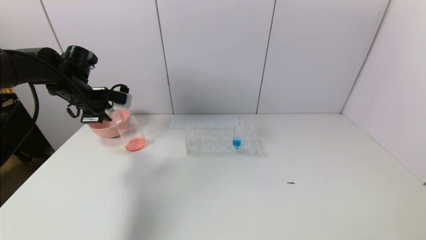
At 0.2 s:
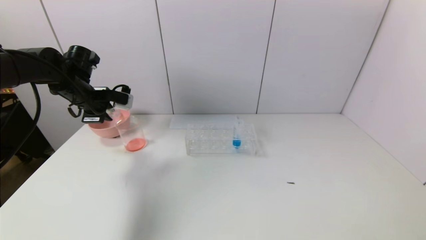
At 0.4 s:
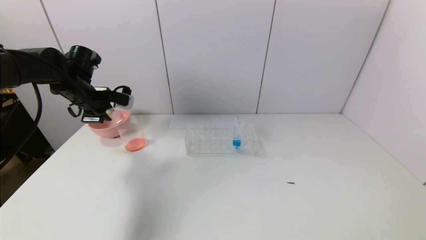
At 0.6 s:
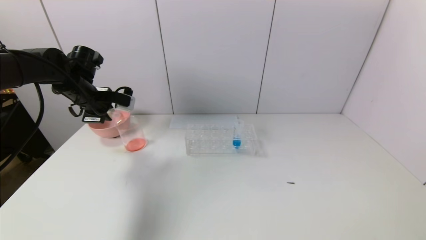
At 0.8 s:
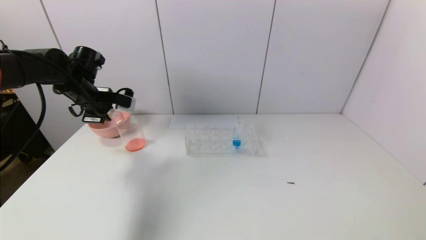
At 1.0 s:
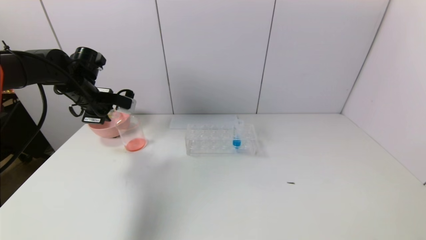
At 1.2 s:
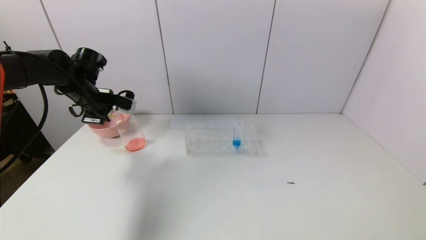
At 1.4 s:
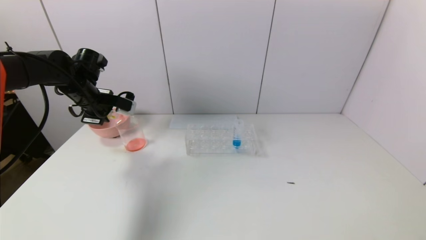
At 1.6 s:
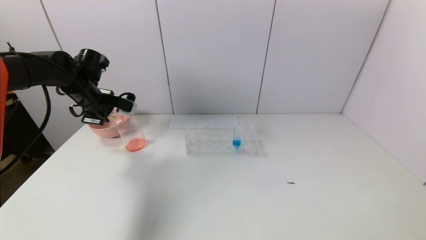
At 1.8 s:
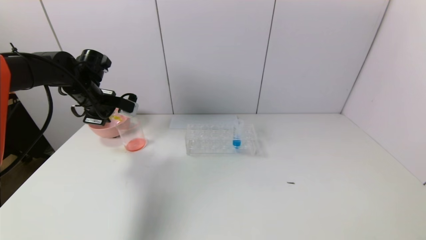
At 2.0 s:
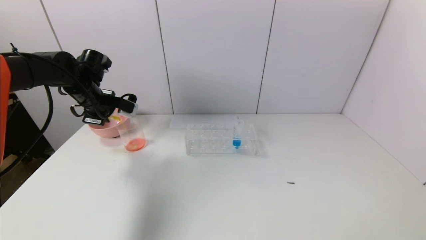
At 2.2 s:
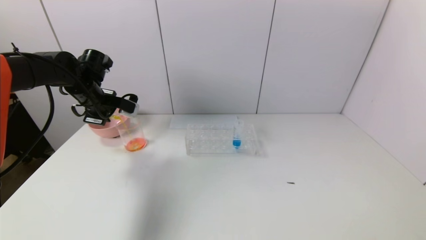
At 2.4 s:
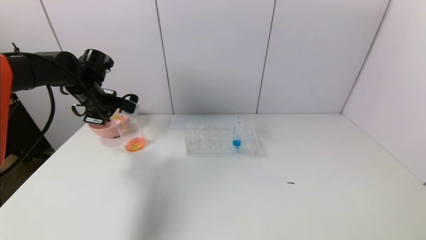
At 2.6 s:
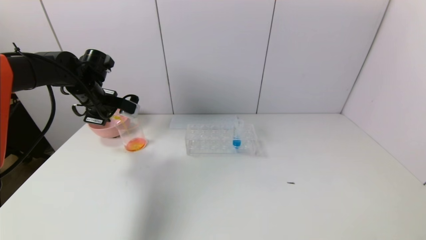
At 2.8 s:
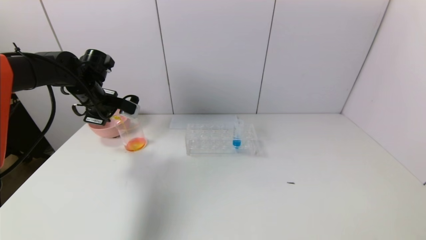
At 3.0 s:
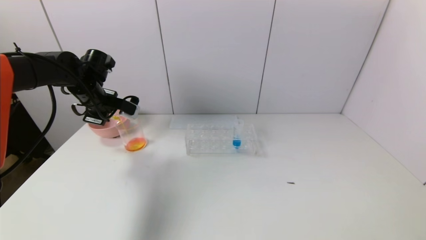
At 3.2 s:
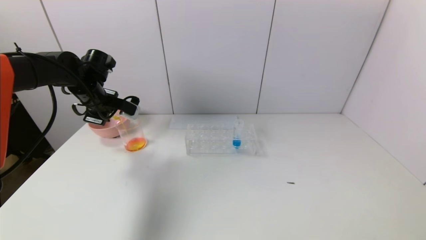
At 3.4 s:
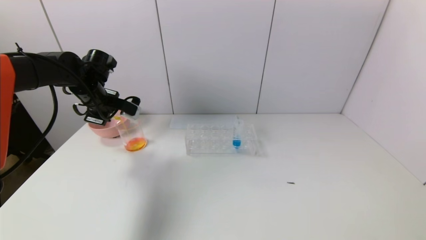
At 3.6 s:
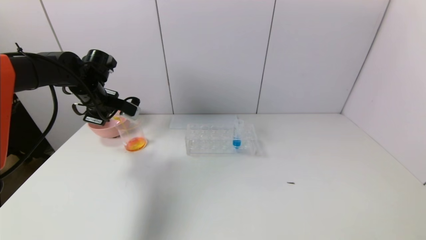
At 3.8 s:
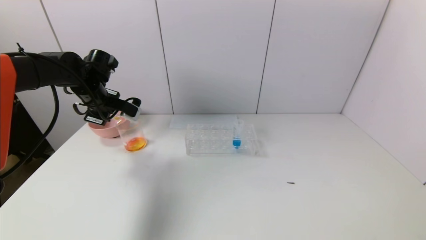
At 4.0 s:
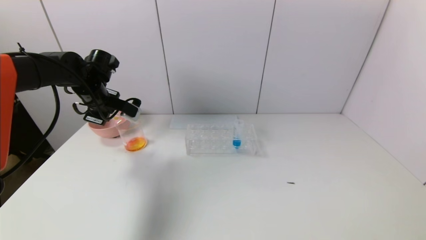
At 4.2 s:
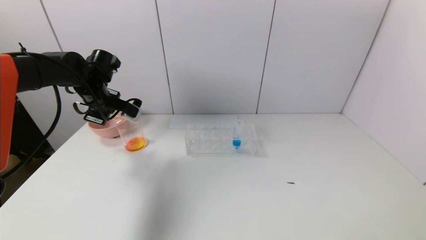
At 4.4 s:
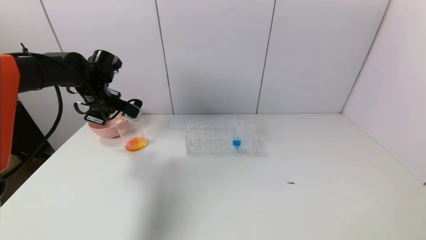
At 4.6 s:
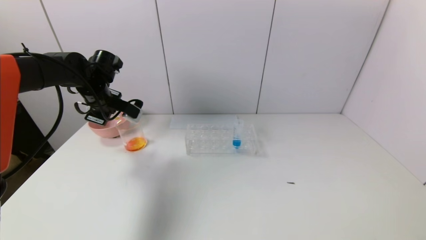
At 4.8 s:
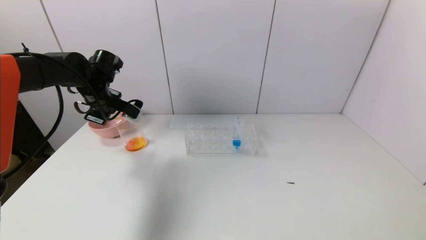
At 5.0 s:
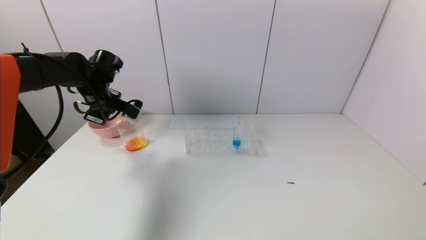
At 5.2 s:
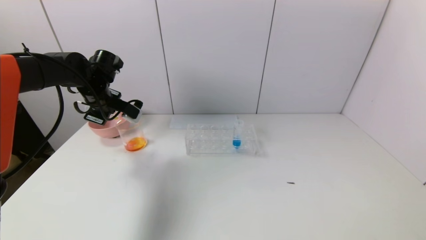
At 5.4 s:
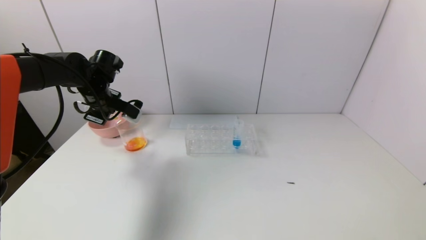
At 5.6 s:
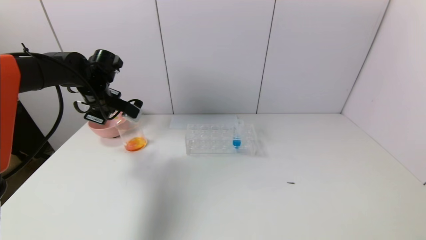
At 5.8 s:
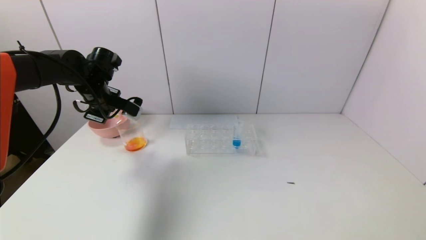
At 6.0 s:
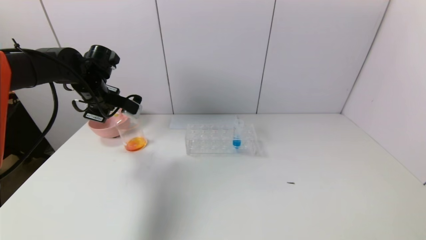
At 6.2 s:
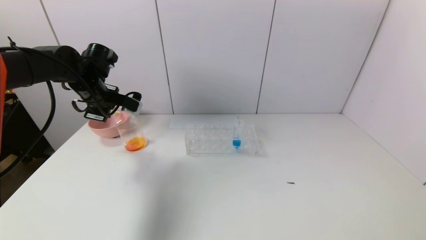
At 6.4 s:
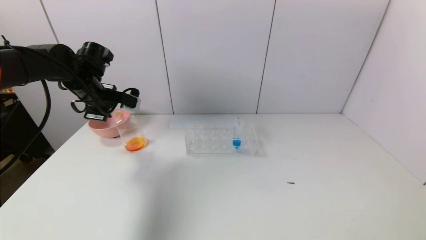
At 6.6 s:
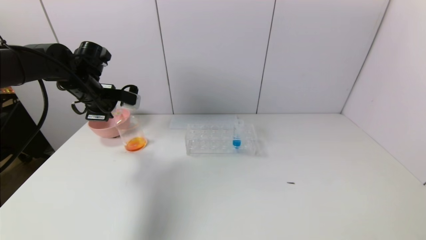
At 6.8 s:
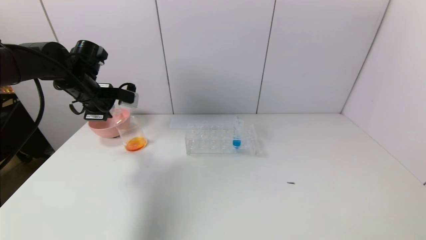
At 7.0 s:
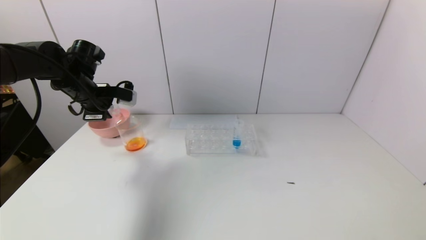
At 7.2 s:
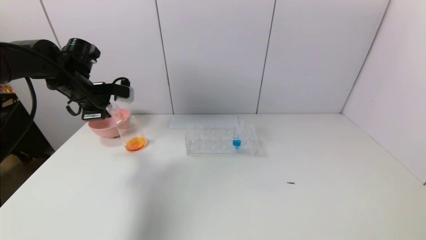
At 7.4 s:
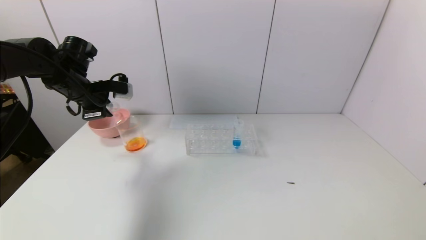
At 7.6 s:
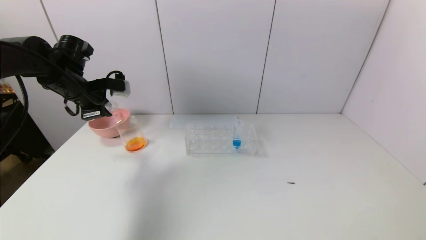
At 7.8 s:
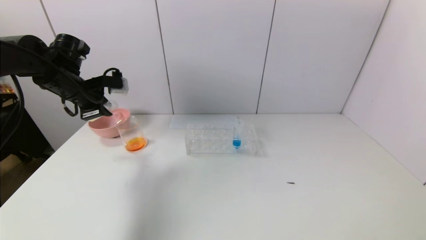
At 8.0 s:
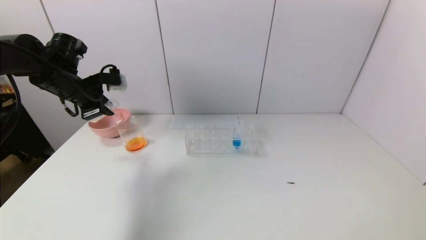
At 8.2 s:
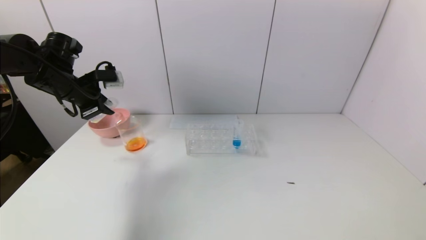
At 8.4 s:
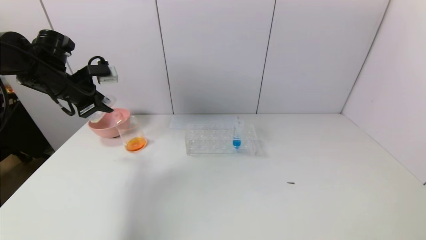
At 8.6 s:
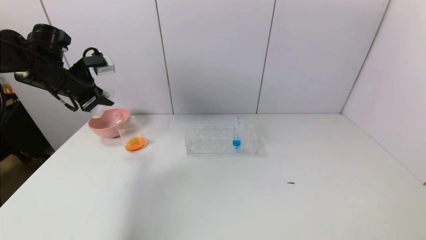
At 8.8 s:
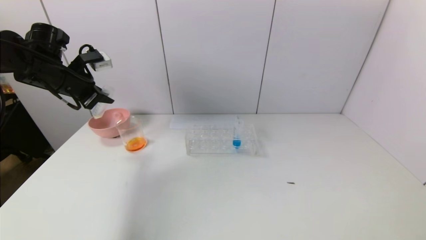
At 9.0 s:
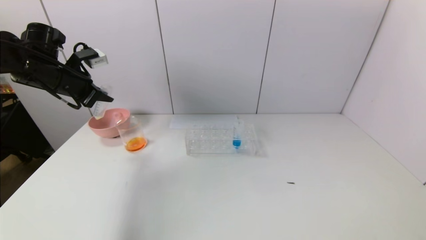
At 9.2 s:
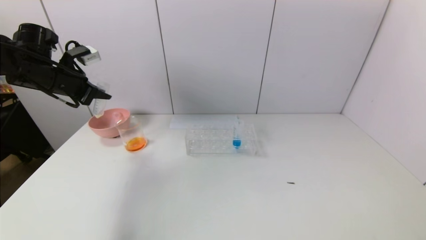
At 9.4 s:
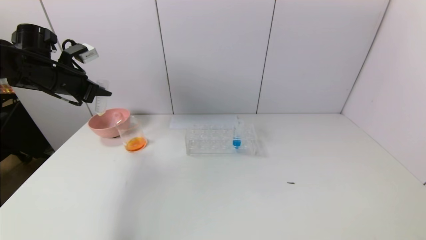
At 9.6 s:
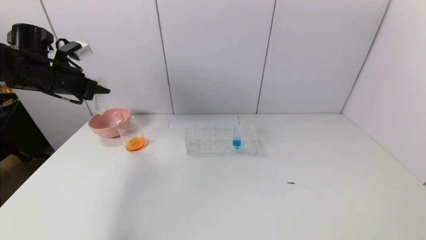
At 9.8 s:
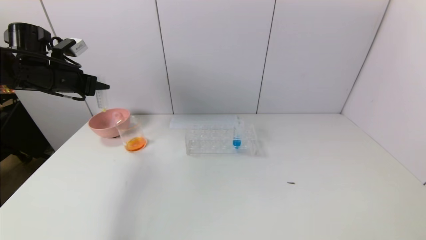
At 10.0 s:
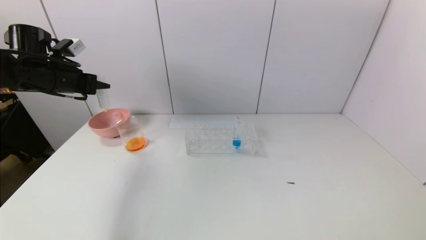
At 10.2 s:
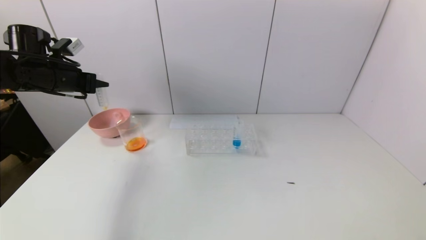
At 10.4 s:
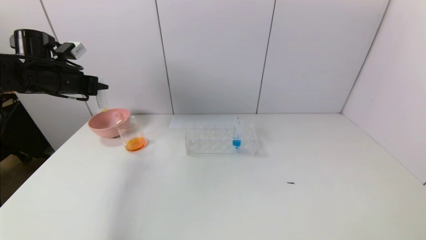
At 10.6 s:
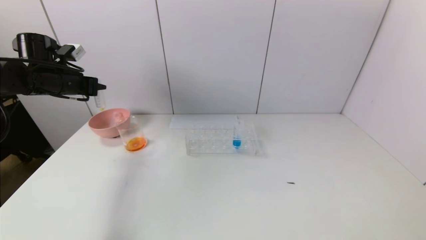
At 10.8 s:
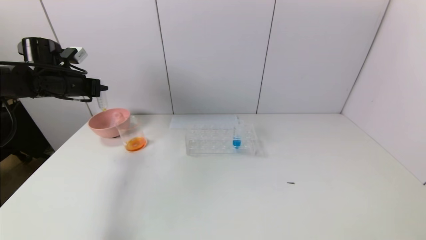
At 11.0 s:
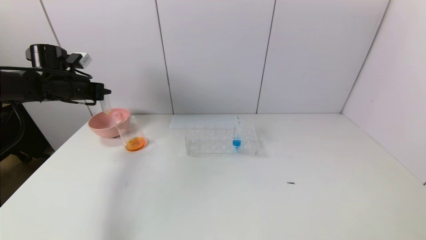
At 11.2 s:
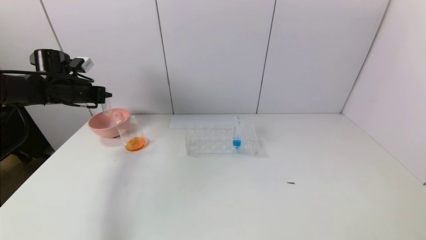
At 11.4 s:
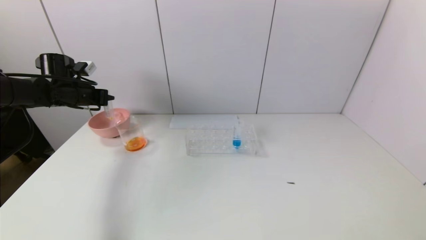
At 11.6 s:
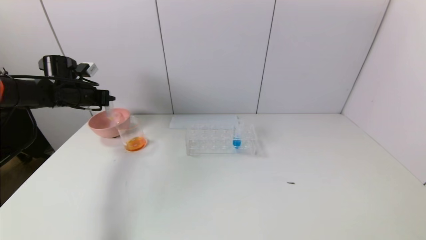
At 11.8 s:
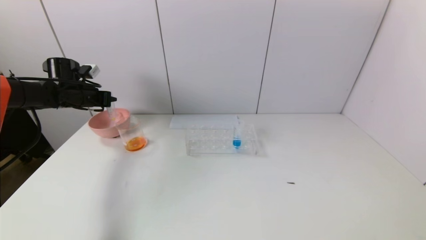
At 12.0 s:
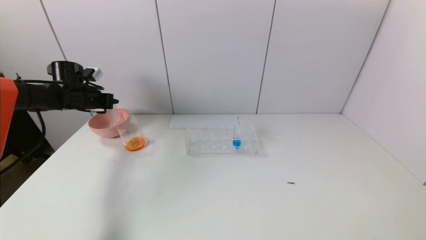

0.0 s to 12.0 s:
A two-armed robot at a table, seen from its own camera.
Task of the whole recording: pick up the test tube with yellow pigment and the test tube with red pigment by grippers and pour them into the beaker.
Step, 0.0 to 5.8 s: Pour the yellow reagent into the graduated cylinder with the left gripper.
0.0 to 3.0 s: There are only small adjustments of the grippers.
3.0 to 4.4 s: The grippers make only small movements.
4.4 to 6.0 s: Both grippers stay about where they are.
10.4 to 12.0 s: The left gripper is displaced downward and forward by about 10 cm.

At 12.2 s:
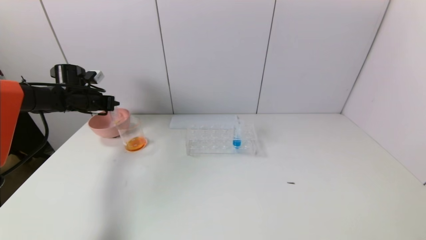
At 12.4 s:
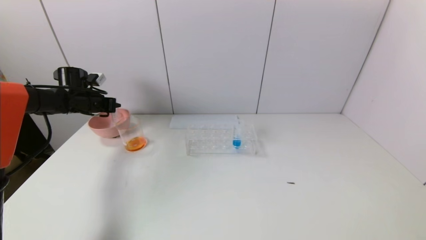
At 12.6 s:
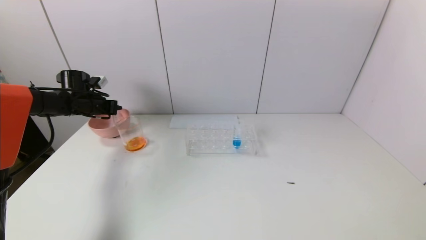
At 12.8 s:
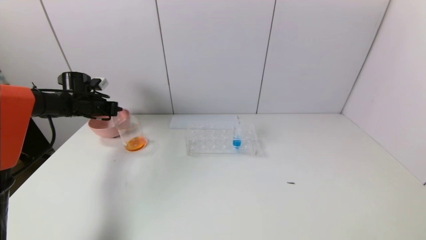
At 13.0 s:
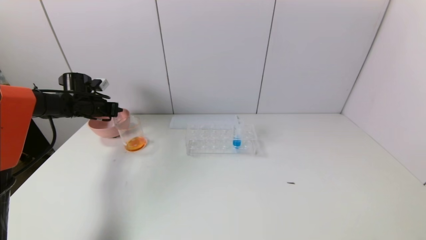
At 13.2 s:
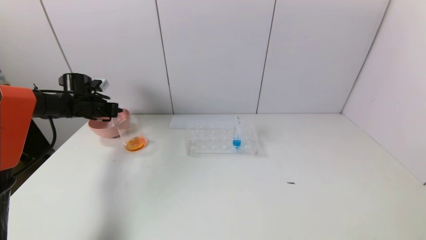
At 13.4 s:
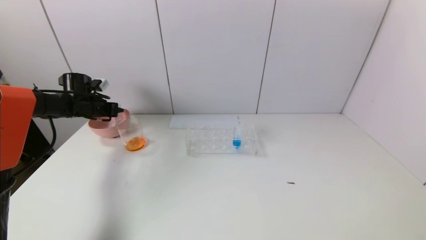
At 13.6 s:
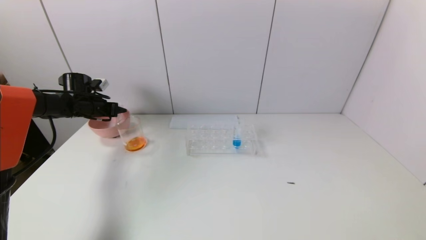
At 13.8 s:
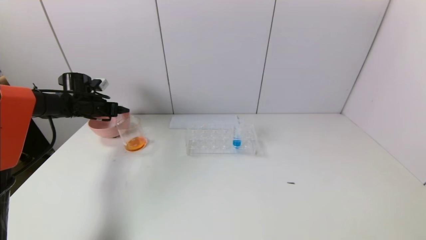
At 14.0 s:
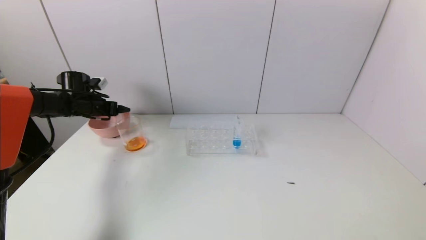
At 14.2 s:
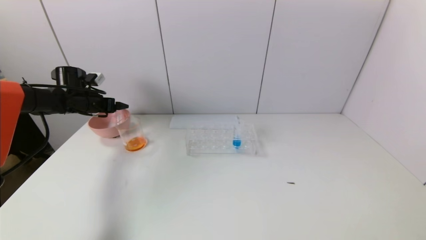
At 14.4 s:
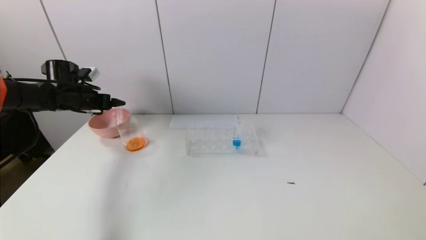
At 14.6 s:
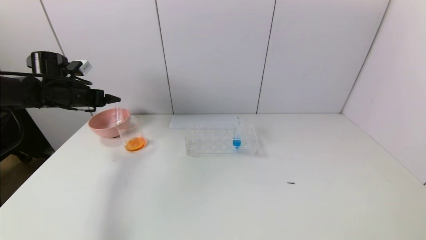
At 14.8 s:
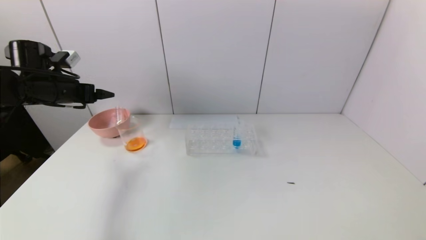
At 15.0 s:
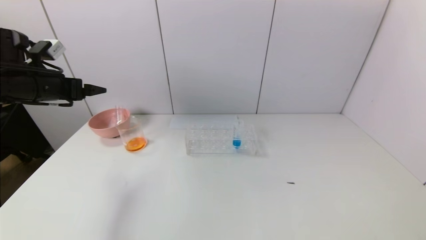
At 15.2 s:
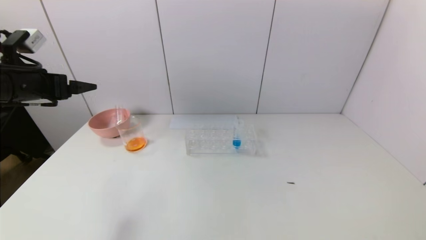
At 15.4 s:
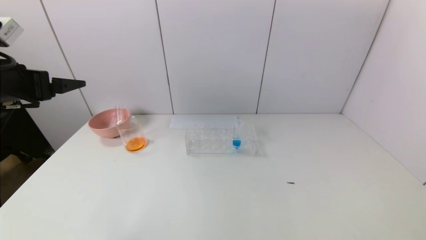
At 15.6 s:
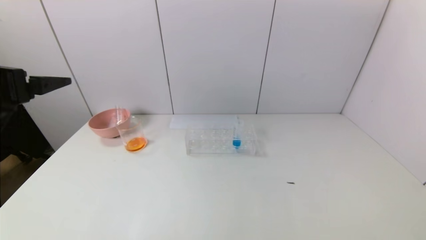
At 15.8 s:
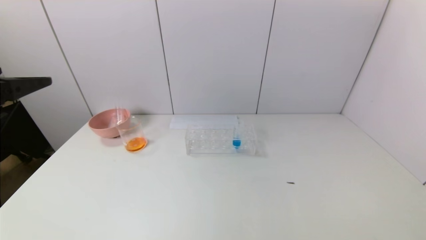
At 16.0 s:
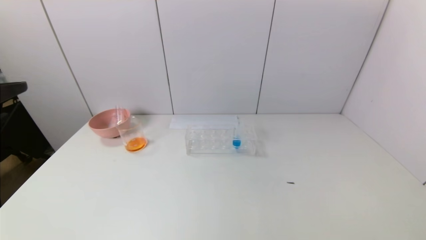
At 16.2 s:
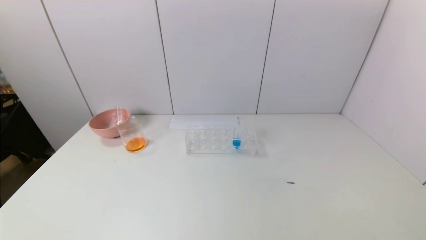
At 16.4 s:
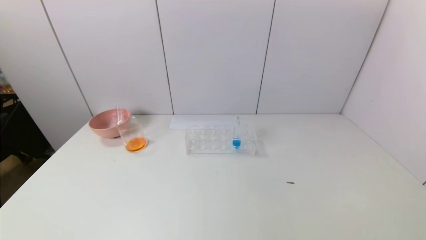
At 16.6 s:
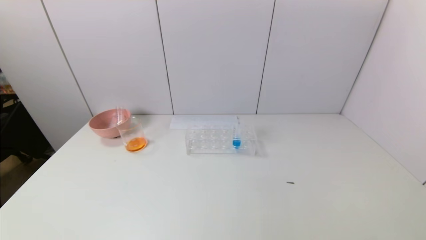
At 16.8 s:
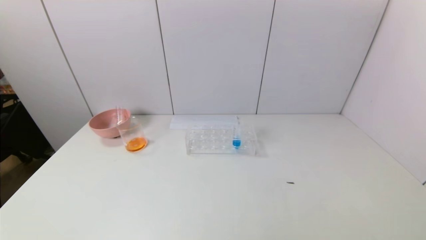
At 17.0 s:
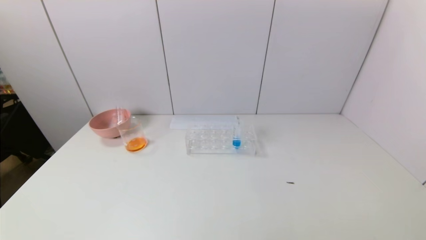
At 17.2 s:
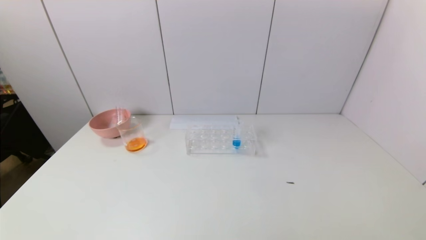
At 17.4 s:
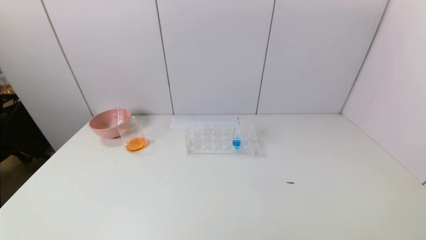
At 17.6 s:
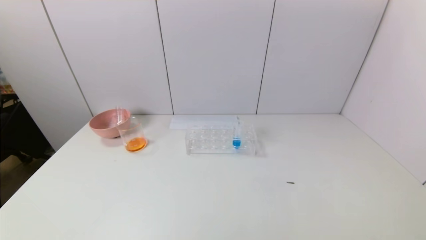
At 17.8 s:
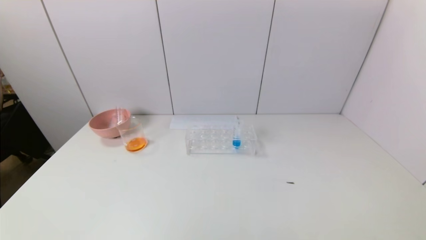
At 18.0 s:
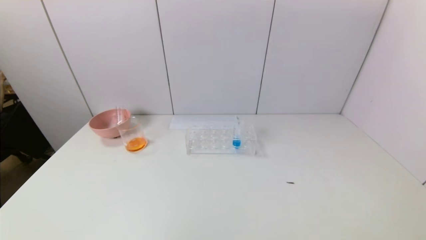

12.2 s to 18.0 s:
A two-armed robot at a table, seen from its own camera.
Task of the whole recording: pick up the test tube with yellow pigment and the test tube with red pigment by grippers and pour them into the beaker.
12.2 to 13.6 s: The left gripper opens up.
13.6 to 15.0 s: The left gripper travels backward and upward by some 20 cm, and opens its fingers.
15.0 to 16.6 s: The left gripper travels backward by about 35 cm.
